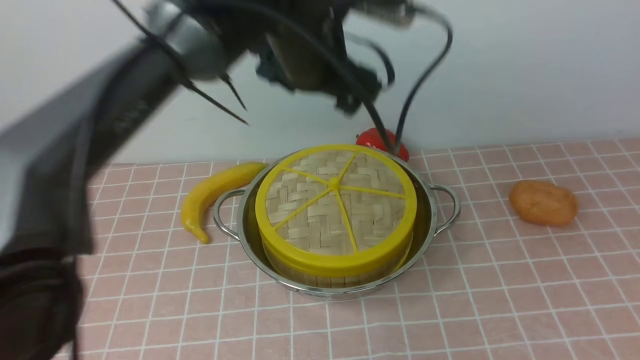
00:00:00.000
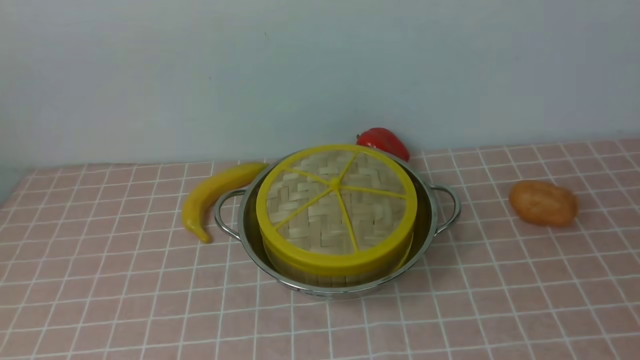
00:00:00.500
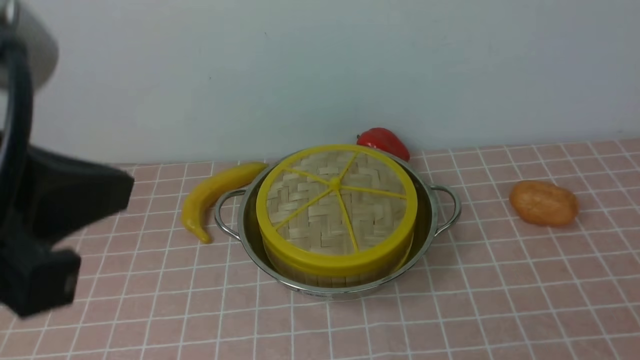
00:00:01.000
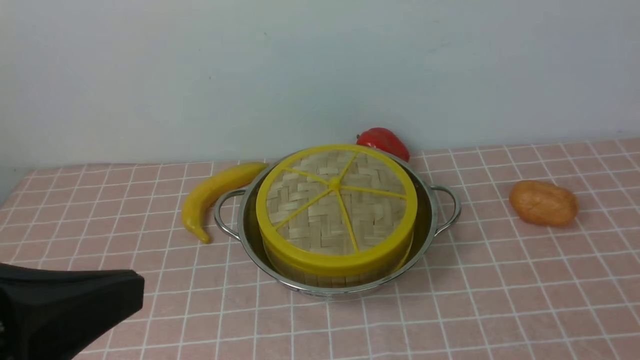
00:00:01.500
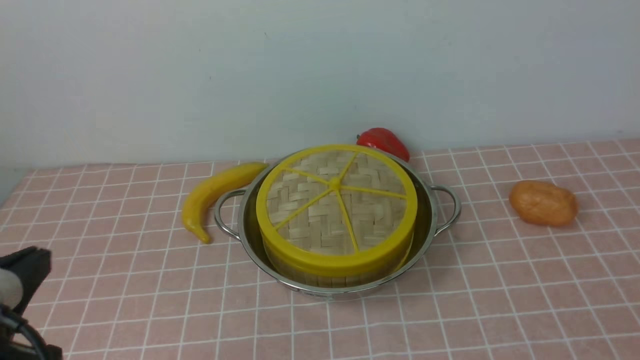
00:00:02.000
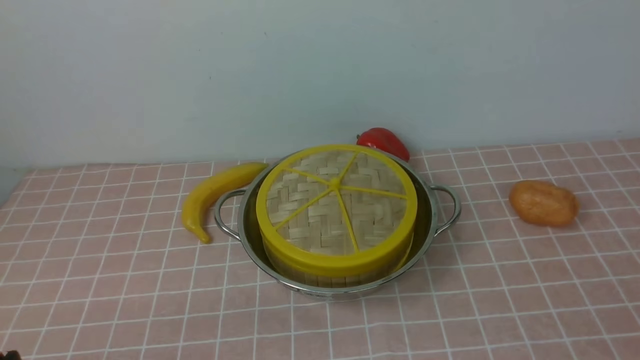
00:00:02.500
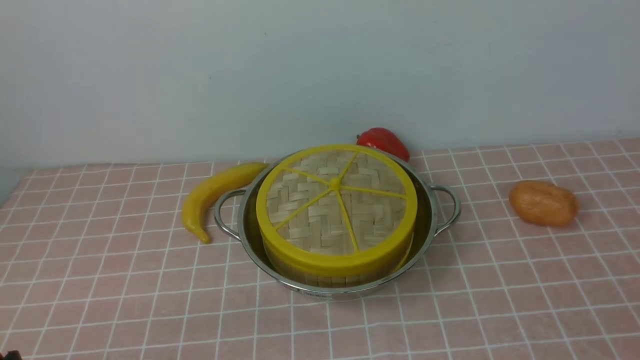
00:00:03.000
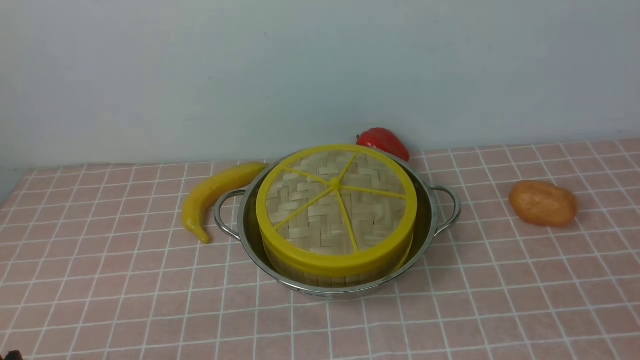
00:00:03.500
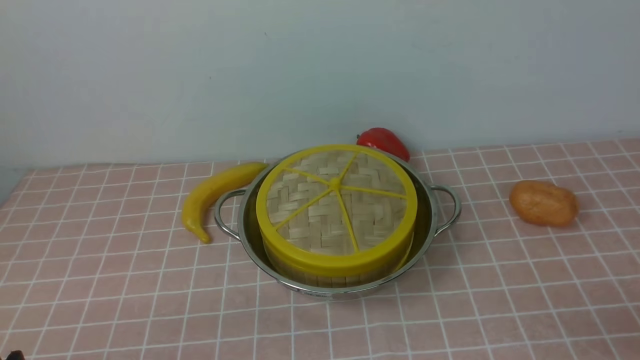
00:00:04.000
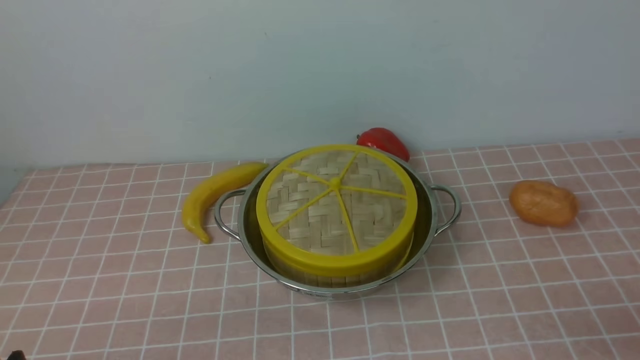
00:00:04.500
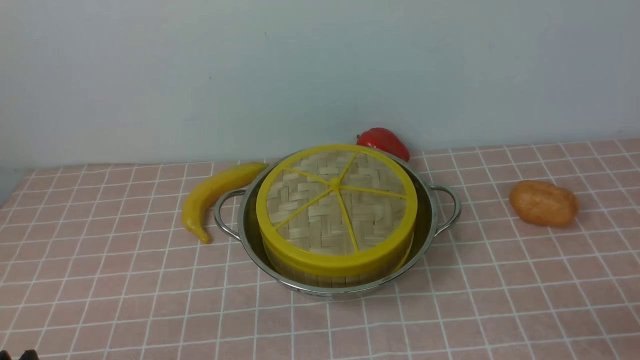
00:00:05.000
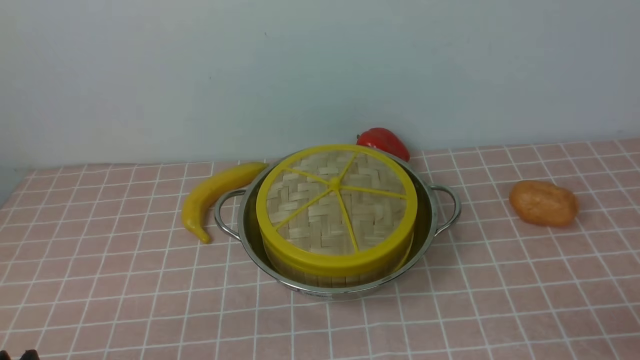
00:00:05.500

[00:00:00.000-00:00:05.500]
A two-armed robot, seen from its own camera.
Task of the whole recording: place the steamer in the pot on the pink tablecloth, and put the lid on the steamer.
00:00:00.000 to 00:00:02.000: The right gripper travels downward by some 25 cm, and closes up. The left gripper goes some 35 cm backward and to the left, and closes its fingers.
00:00:02.000 to 00:00:03.500: The left gripper moves downward, some 10 cm.
